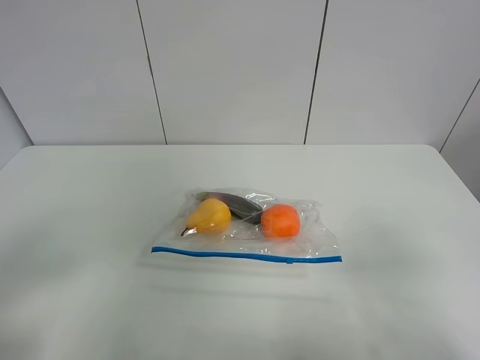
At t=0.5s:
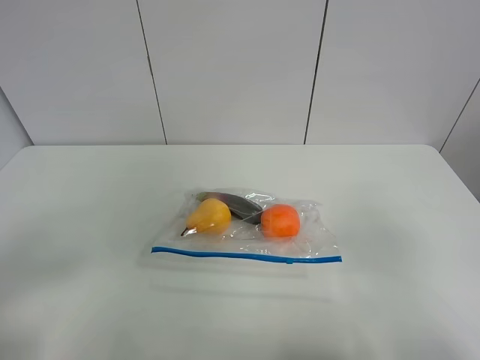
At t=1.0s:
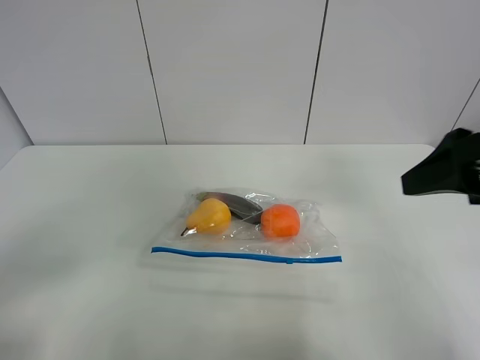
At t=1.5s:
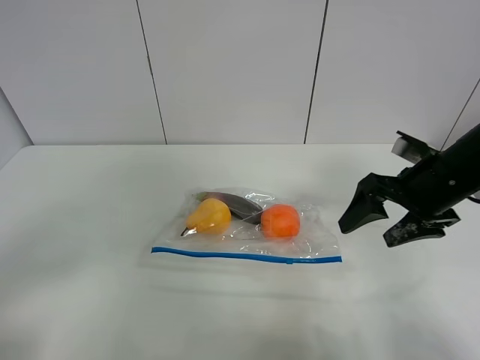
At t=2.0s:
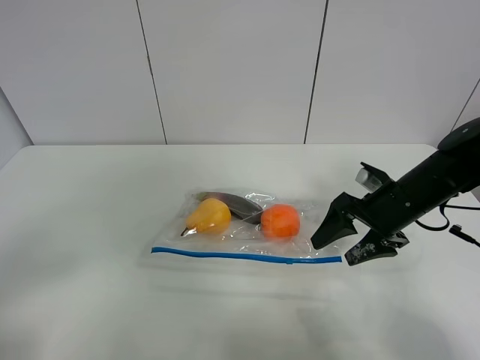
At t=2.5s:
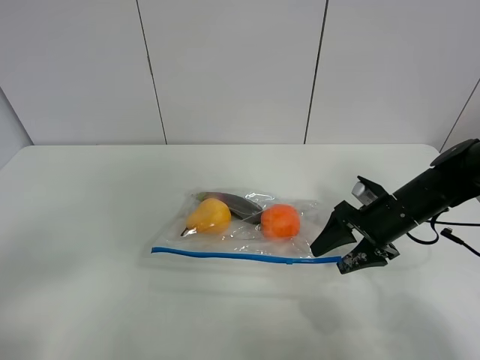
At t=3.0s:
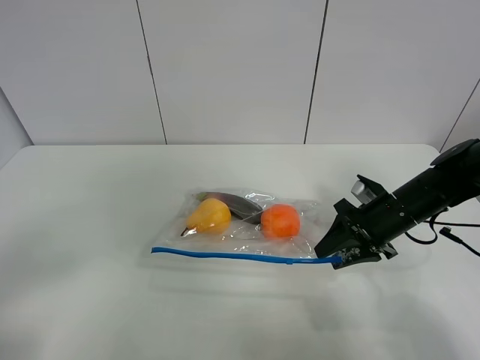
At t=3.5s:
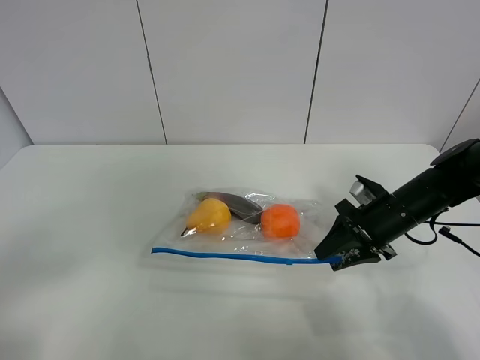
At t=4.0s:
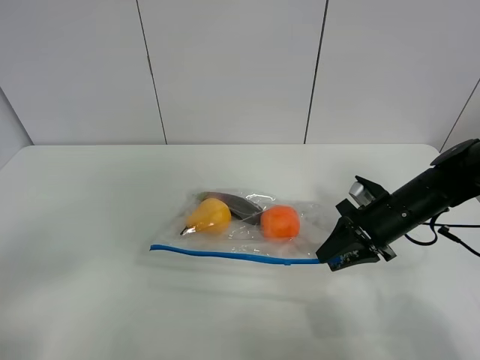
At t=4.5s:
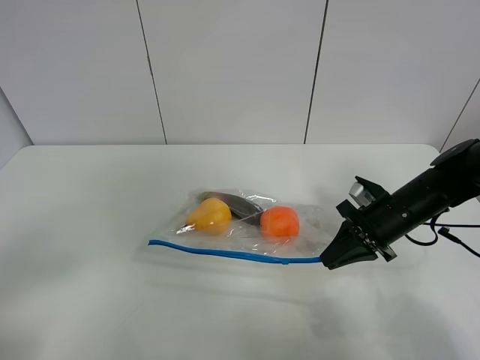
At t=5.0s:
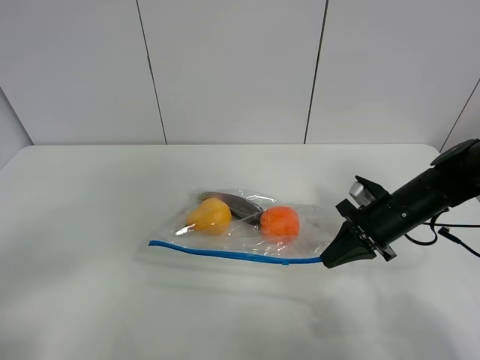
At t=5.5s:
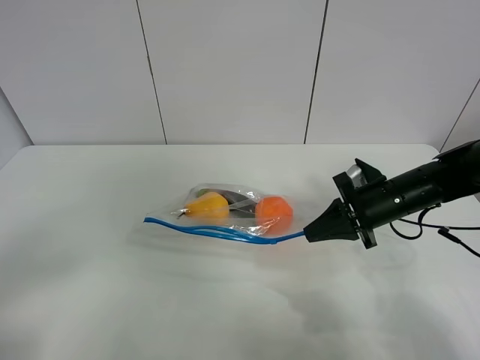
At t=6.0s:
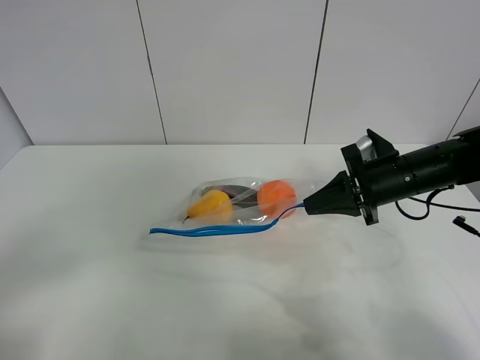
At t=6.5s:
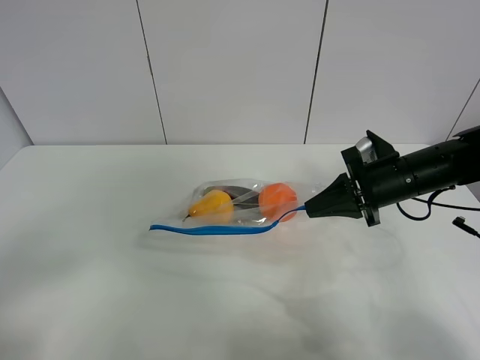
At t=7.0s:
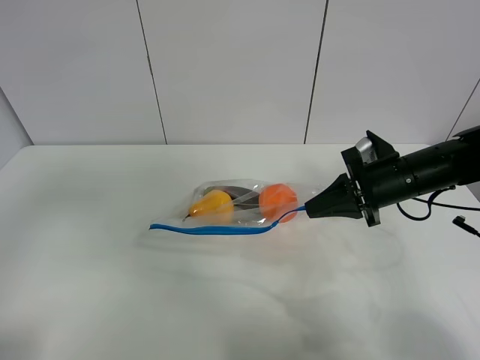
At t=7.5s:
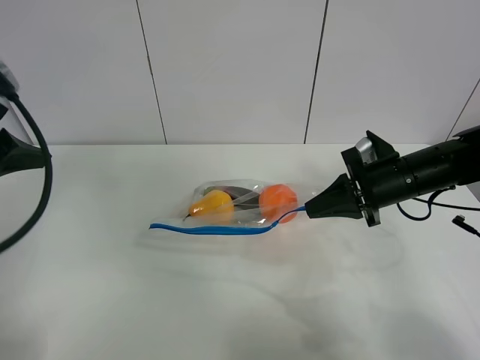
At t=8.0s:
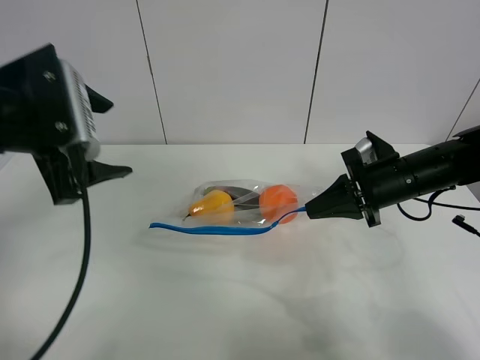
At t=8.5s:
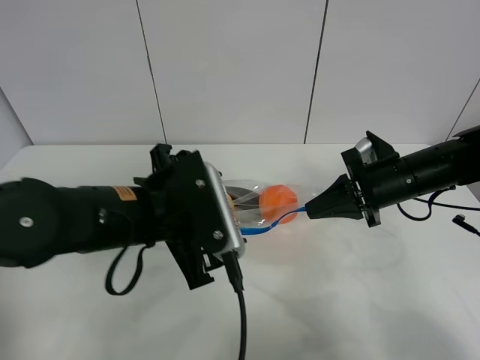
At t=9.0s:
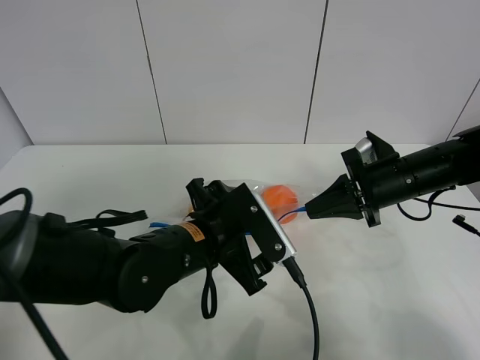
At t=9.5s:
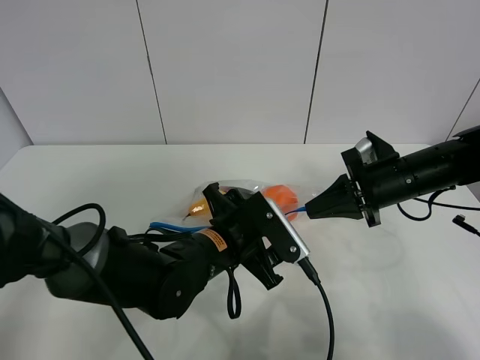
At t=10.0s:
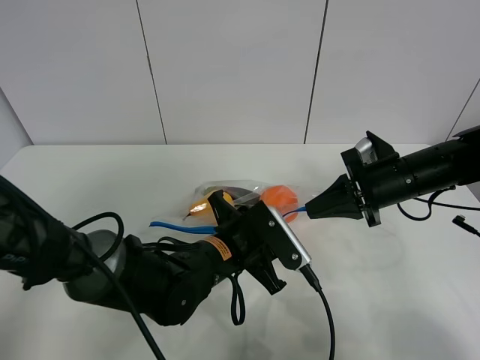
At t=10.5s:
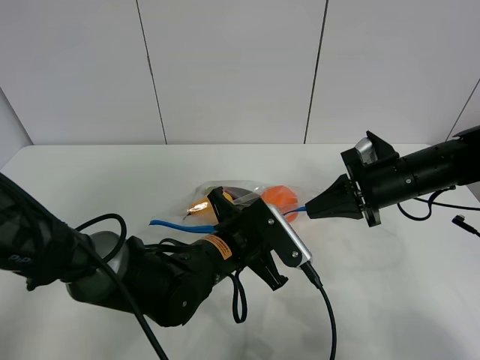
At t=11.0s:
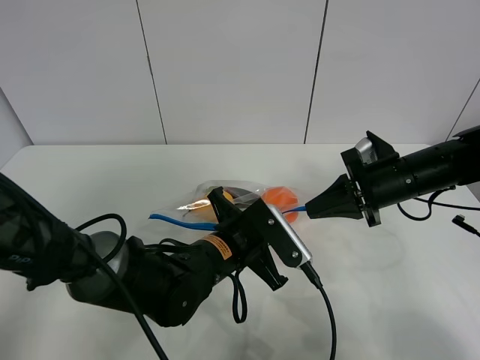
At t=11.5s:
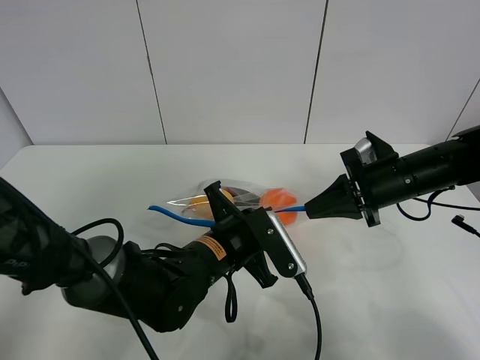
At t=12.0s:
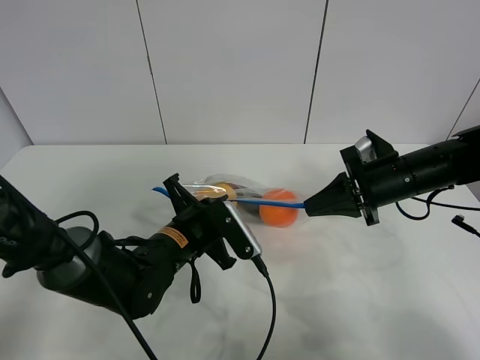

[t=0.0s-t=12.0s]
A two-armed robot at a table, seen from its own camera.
Step, t=0.0s to t=4.5s: Grasp the fruit bag with right gripper.
Step, t=5.0s to t=6.0s: Lift the fruit bag with your right gripper.
t=0.0s to t=2.0s: The right gripper shifts about 30 cm forward and downward.
t=2.0s to t=4.0s: The right gripper closes up.
t=4.0s to t=6.0s: The right gripper shifts approximately 5 cm upward.
t=6.0s to t=8.0s: The left gripper is displaced forward by roughly 25 cm.
t=8.0s to t=10.0s: The left gripper moves to the right and downward, some 25 cm, and closes its fingers.
t=10.0s to t=12.0s: The left gripper moves to the left, some 5 cm, and closes.

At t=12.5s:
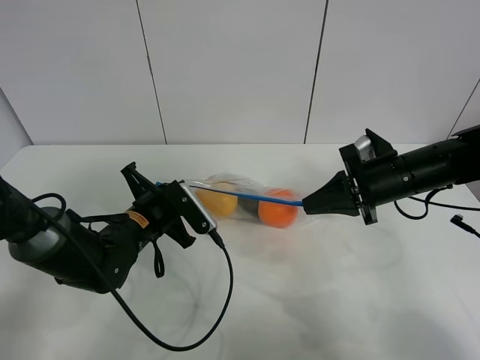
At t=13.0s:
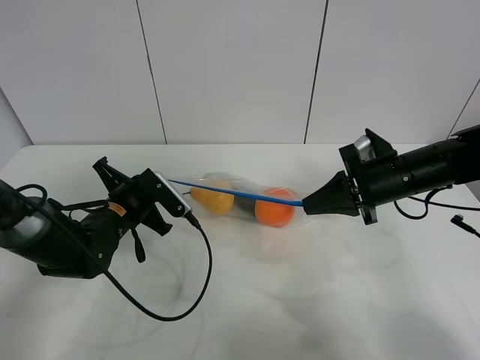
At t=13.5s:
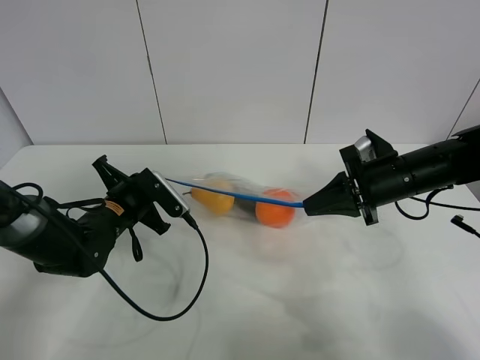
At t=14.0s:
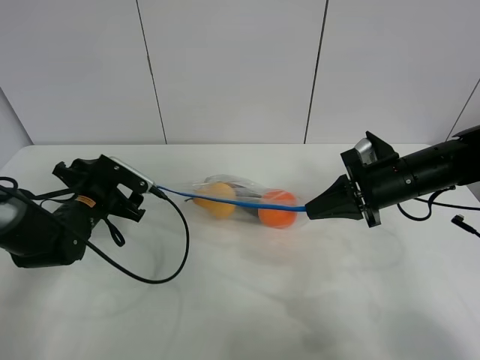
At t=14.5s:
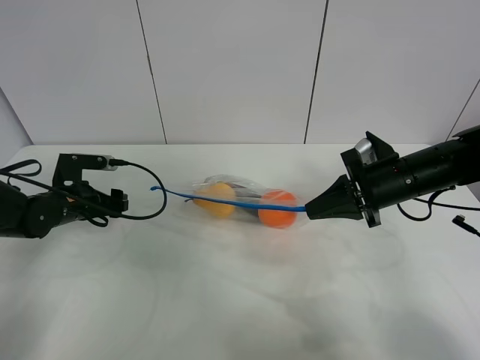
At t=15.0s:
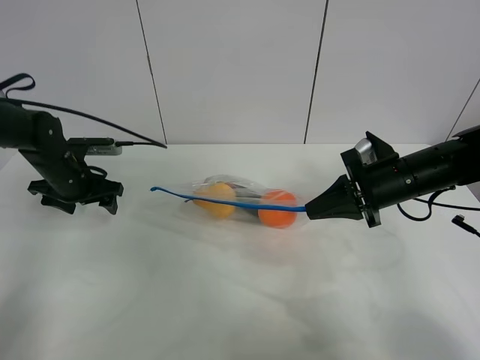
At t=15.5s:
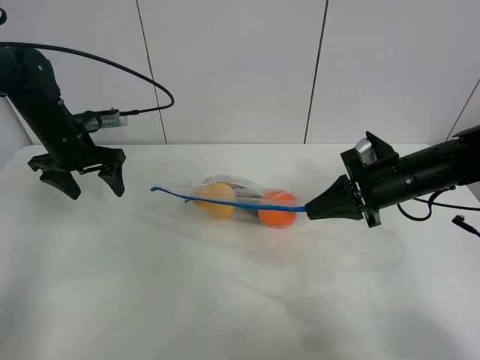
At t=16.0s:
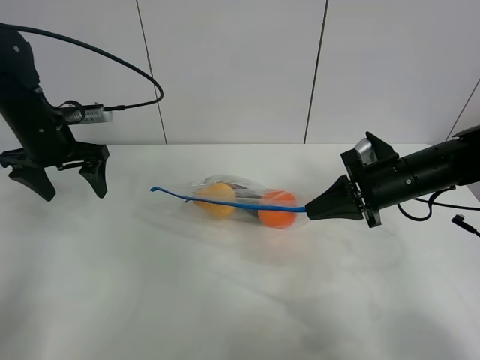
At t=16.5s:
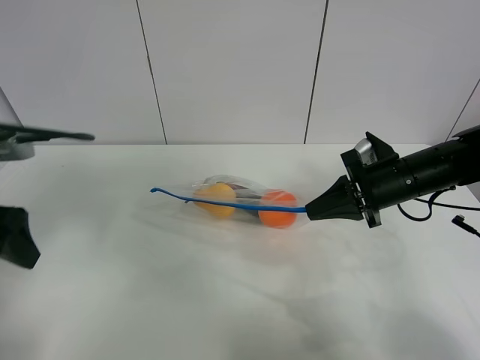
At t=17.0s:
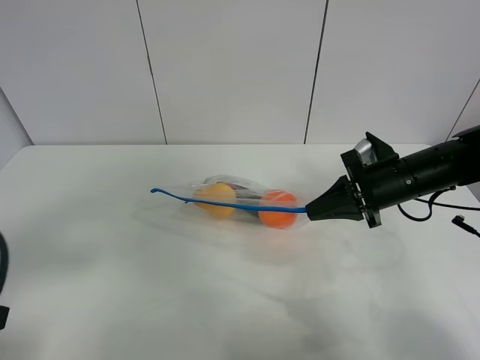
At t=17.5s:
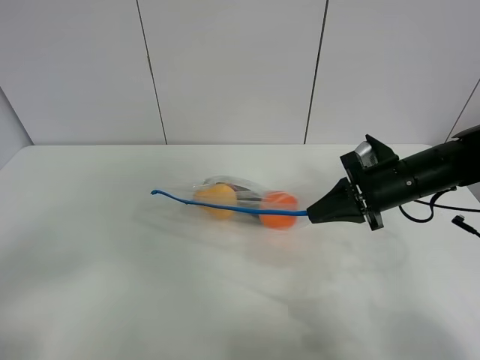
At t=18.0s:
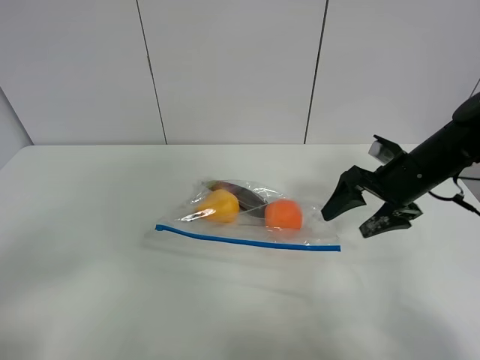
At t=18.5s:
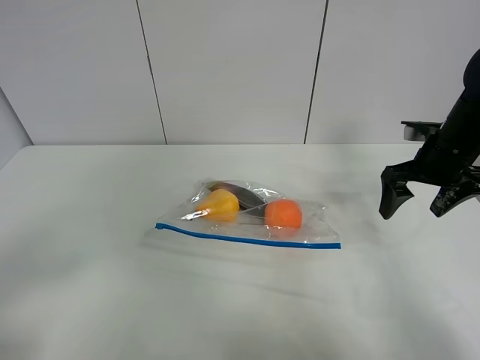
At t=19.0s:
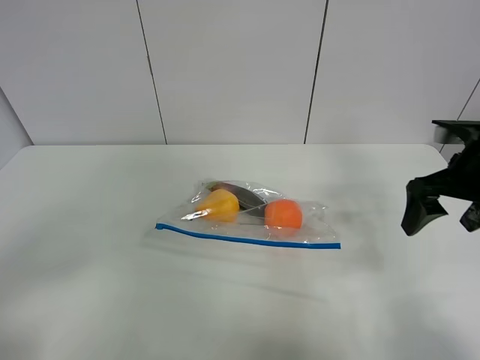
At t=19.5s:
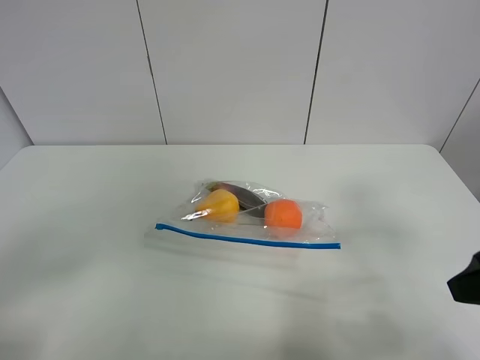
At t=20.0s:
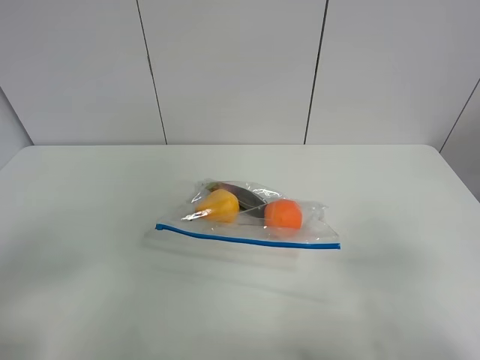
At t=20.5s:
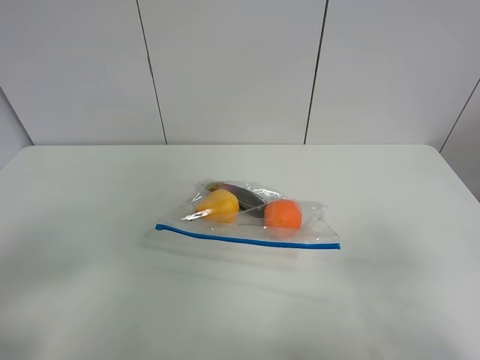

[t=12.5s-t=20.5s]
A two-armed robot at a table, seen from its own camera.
t=12.5s to t=14.5s: The left gripper travels to the left by approximately 15 cm, and opens.
t=14.5s to t=16.5s: The left gripper heads upward and backward, covering about 25 cm.
t=16.5s to t=18.5s: The left gripper shifts about 20 cm backward; the right gripper is displaced to the right by about 5 cm, and opens up.
t=18.5s to t=20.5s: The right gripper moves backward, some 35 cm.
